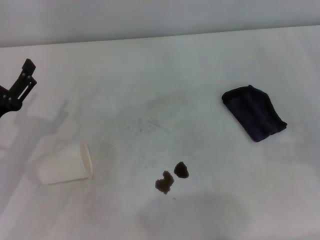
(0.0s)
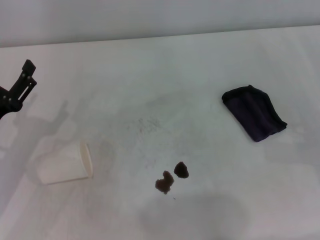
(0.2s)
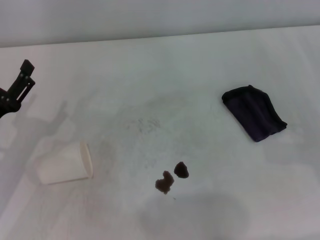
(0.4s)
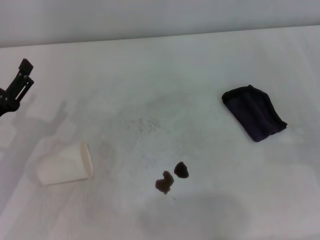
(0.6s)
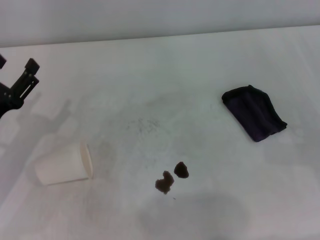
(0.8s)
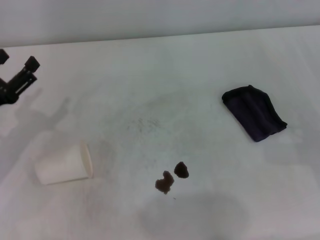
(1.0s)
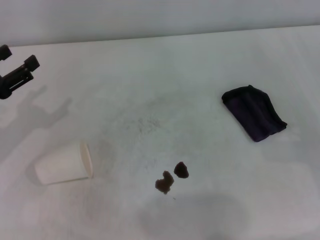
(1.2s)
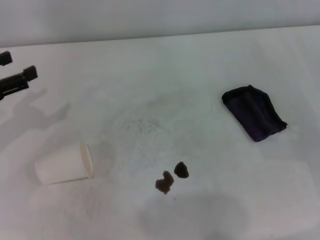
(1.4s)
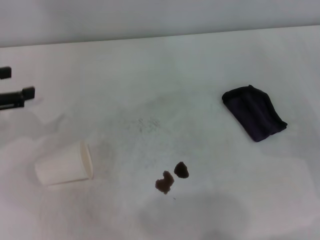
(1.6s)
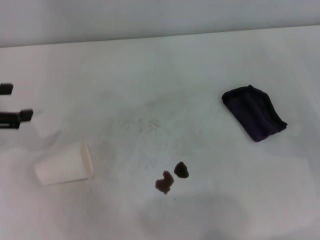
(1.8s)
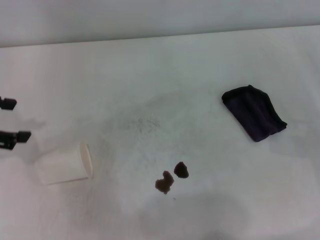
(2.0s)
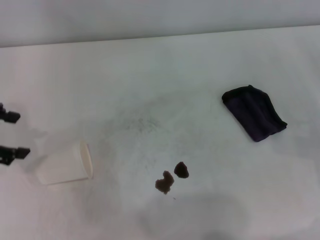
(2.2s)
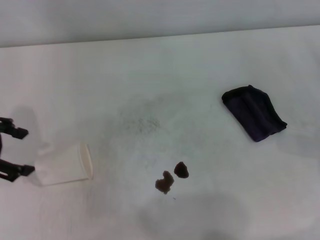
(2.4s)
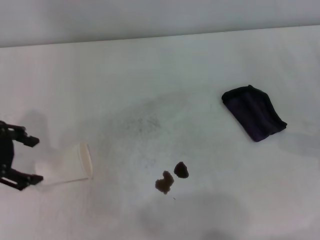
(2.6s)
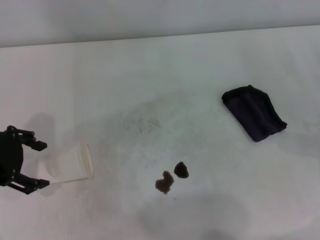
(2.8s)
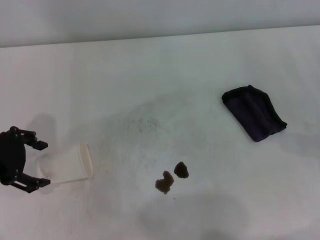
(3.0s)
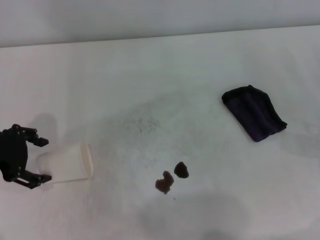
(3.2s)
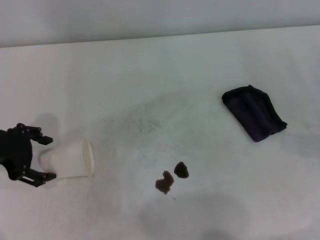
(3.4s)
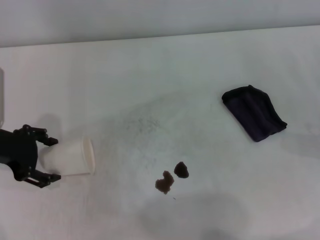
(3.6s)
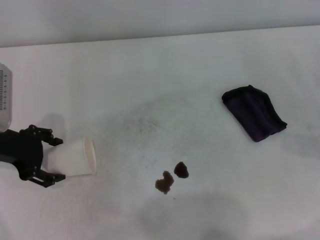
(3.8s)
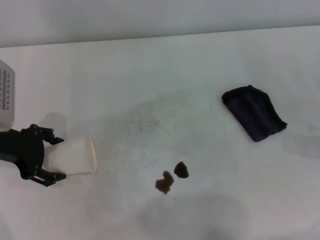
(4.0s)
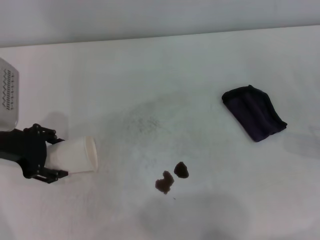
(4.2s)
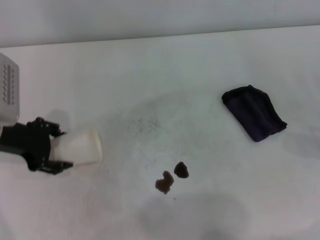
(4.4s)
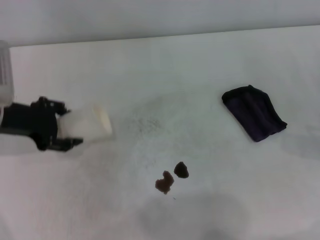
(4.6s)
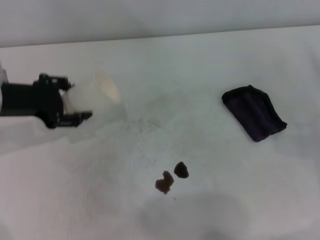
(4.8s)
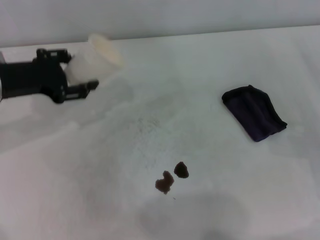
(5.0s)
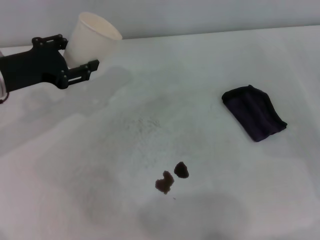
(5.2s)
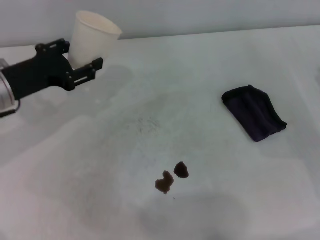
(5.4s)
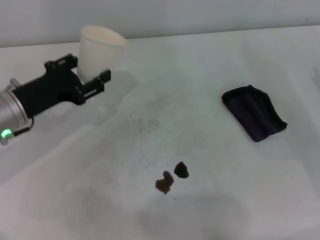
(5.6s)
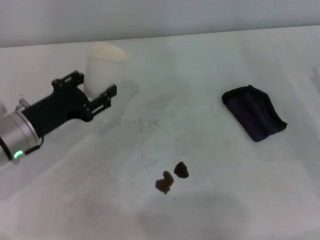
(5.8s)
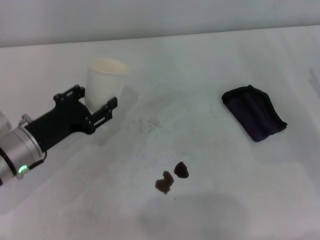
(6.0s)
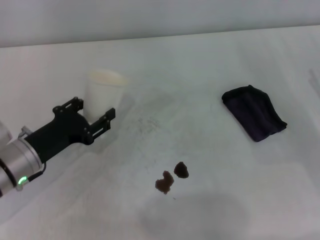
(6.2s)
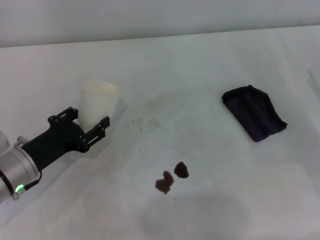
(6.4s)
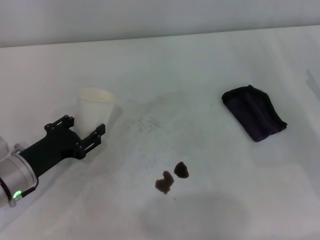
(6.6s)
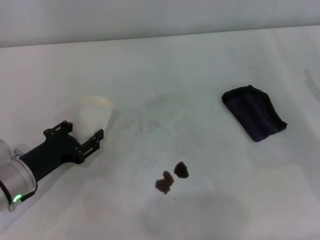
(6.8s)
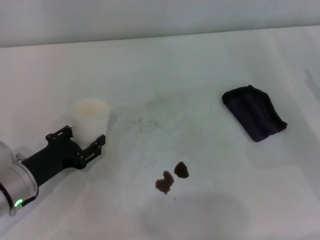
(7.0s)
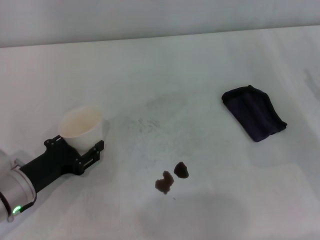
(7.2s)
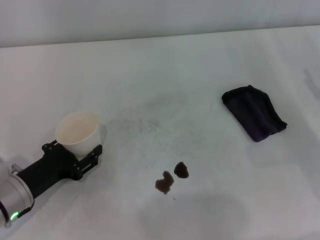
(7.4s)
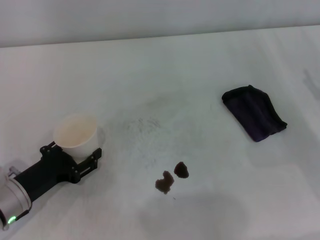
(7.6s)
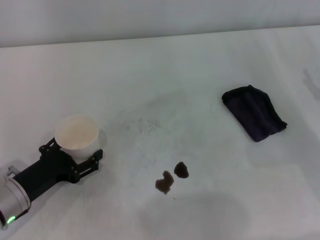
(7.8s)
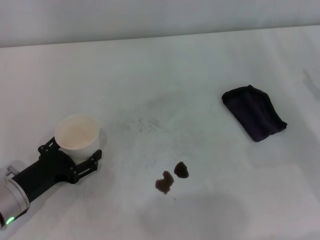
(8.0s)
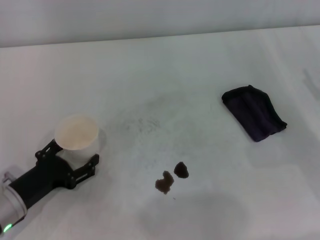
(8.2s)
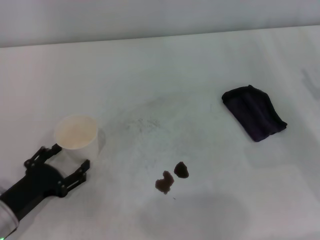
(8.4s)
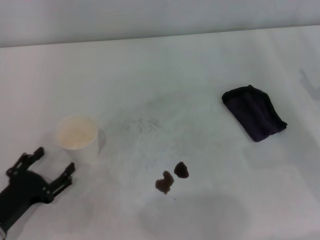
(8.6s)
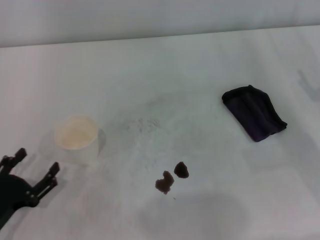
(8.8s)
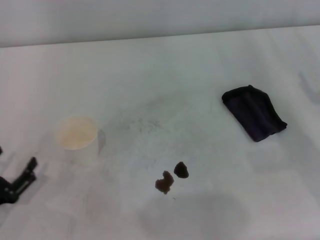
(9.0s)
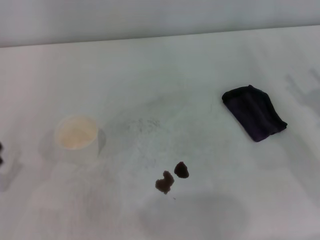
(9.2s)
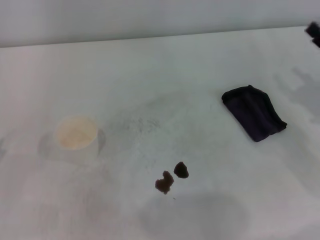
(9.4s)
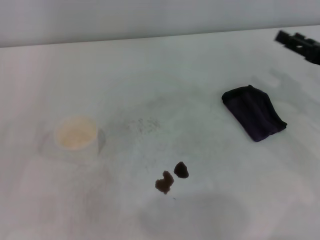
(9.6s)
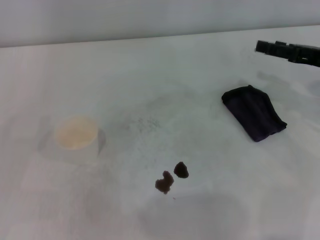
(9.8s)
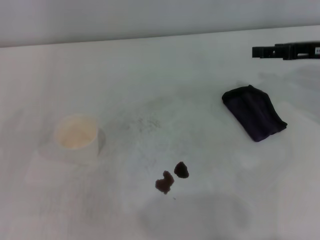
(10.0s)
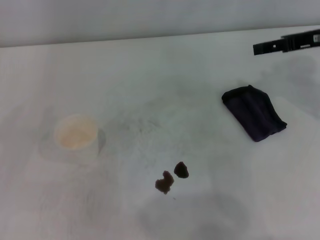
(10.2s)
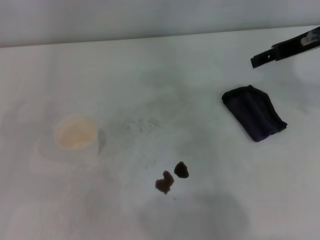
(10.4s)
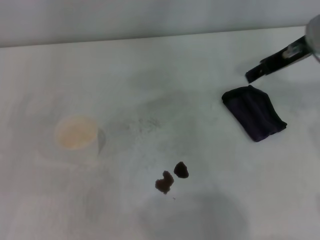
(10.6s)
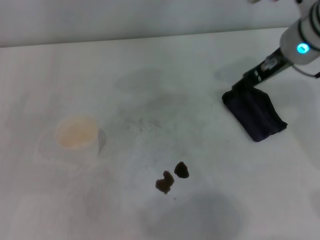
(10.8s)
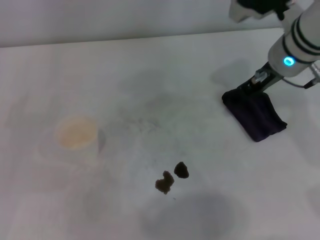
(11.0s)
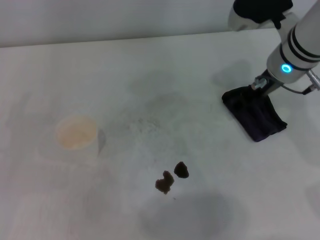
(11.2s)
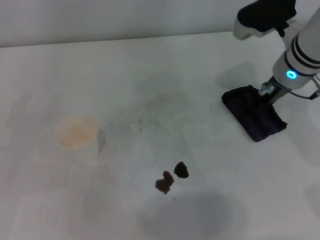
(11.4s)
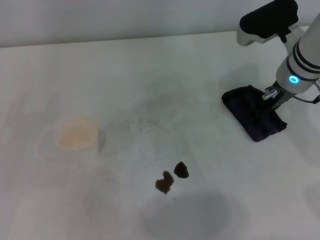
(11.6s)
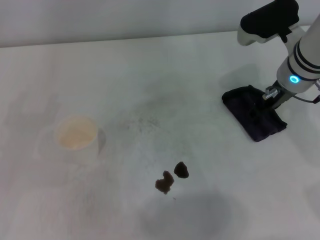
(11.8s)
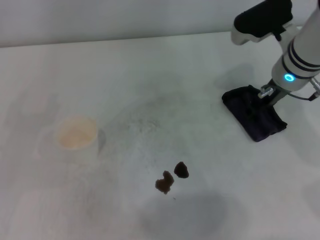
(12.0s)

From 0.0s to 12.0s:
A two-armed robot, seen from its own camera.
Step, from 0.0s to 4.2s: Grasp the paper cup with the left gripper.
Step, from 4.4s to 8.2s: Stand the paper cup upright with the left gripper.
From 0.0s to 1.6s: The left gripper goes roughly 15 cm upward, to the left and forward.
From 1.6s to 3.0s: The left gripper travels to the right by some 5 cm.
From 3.0s to 4.4s: The left gripper closes its fingers.
From 4.4s to 6.0s: The left gripper heads downward, covering approximately 10 cm.
From 6.0s to 7.6s: The left gripper travels backward by roughly 5 cm.
From 7.6s to 9.0s: The left gripper is displaced backward and to the left by roughly 10 cm, and opens.
From 9.0s to 10.4s: The left gripper shifts about 10 cm to the left, upward and forward; the right gripper is displaced upward, forward and to the left by approximately 20 cm.
From 10.4s to 12.0s: The right gripper shifts some 10 cm downward and to the left.

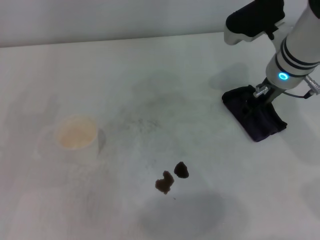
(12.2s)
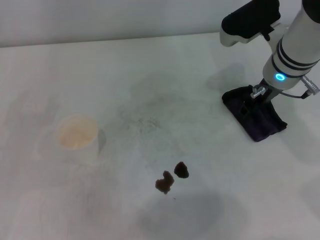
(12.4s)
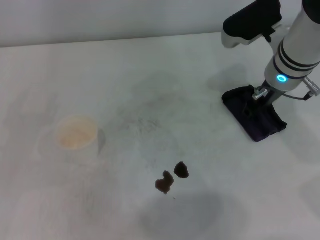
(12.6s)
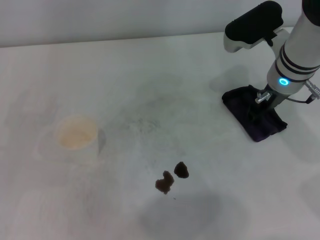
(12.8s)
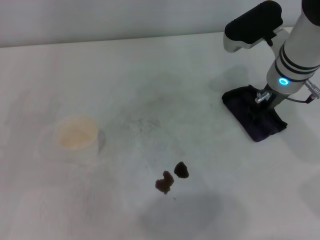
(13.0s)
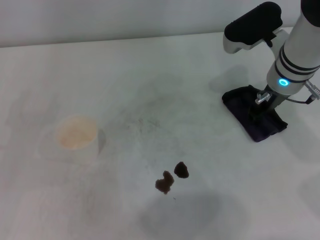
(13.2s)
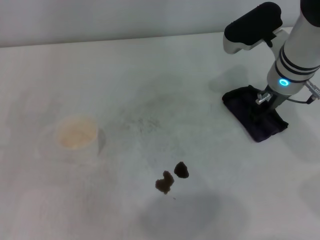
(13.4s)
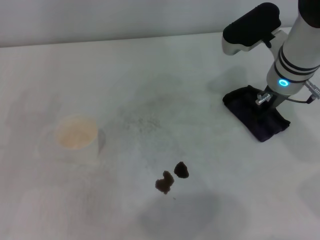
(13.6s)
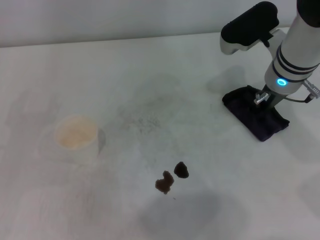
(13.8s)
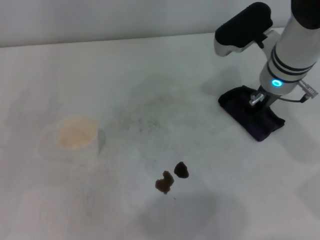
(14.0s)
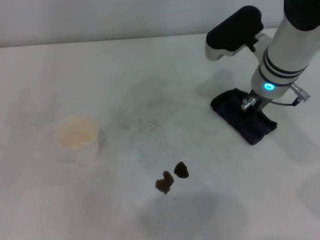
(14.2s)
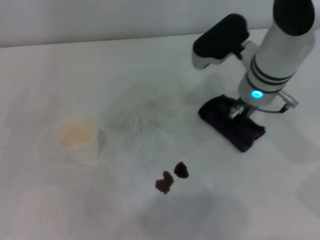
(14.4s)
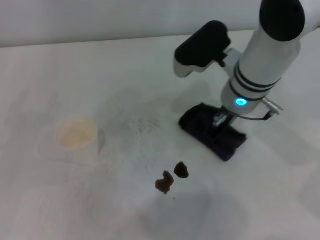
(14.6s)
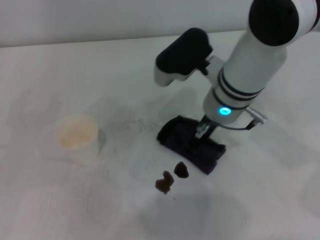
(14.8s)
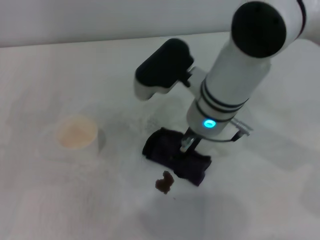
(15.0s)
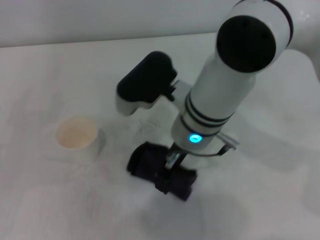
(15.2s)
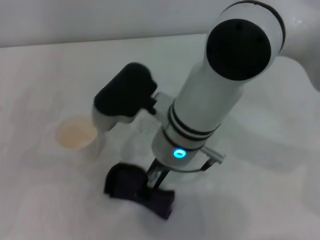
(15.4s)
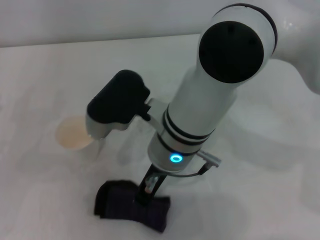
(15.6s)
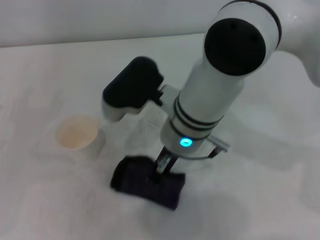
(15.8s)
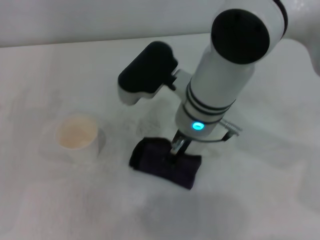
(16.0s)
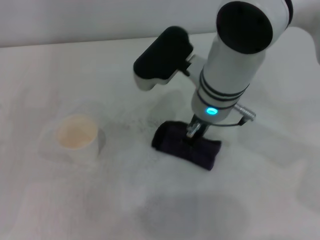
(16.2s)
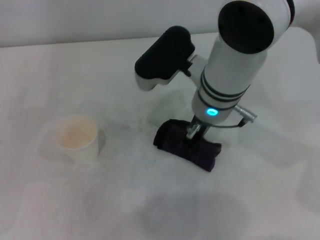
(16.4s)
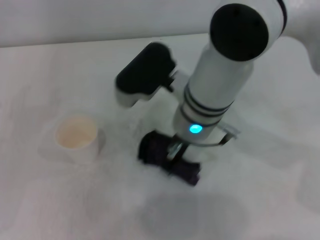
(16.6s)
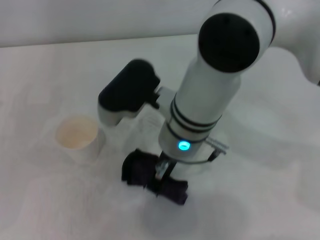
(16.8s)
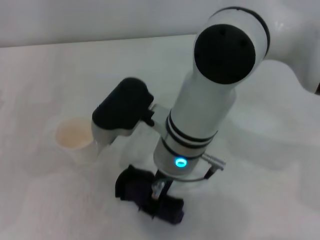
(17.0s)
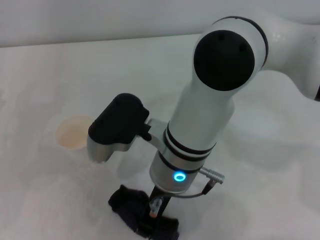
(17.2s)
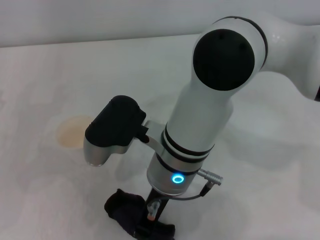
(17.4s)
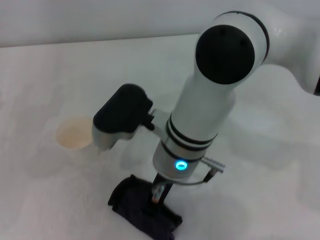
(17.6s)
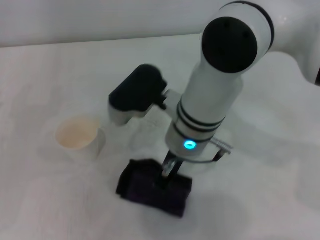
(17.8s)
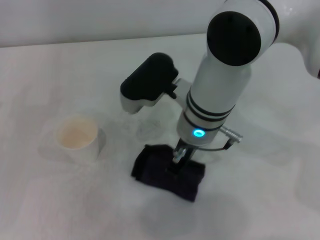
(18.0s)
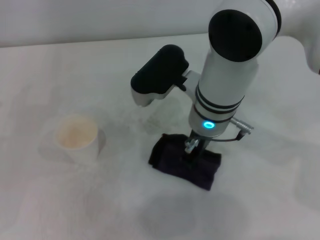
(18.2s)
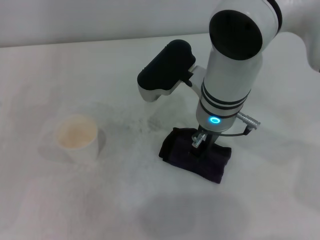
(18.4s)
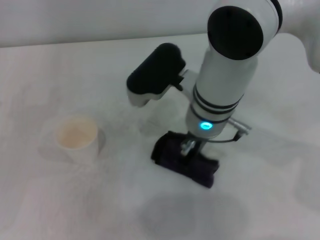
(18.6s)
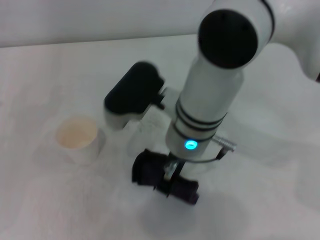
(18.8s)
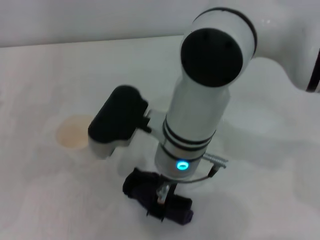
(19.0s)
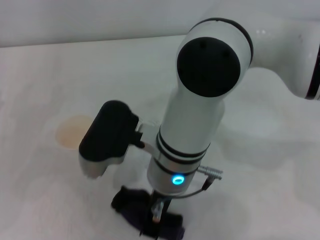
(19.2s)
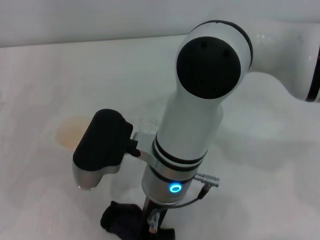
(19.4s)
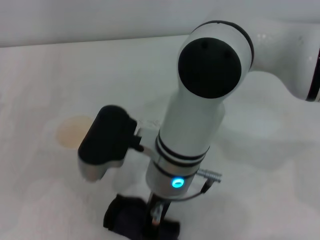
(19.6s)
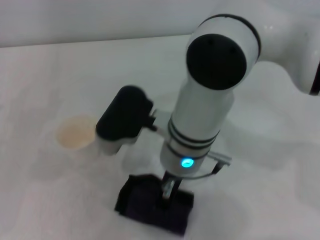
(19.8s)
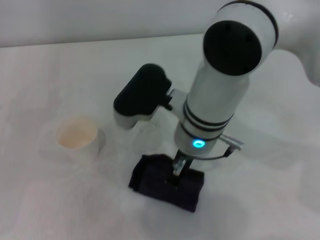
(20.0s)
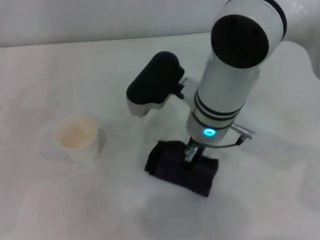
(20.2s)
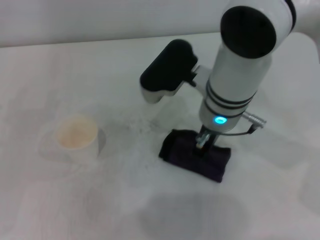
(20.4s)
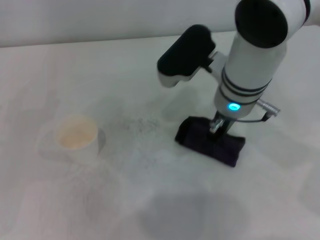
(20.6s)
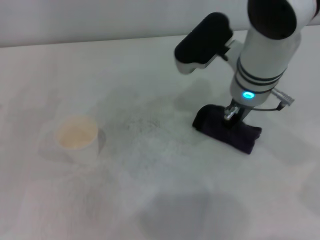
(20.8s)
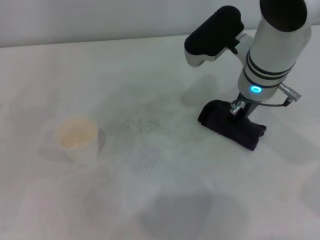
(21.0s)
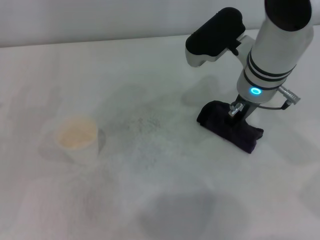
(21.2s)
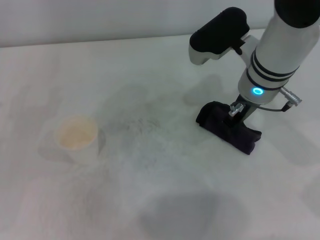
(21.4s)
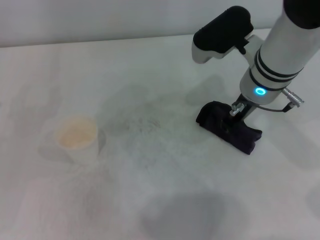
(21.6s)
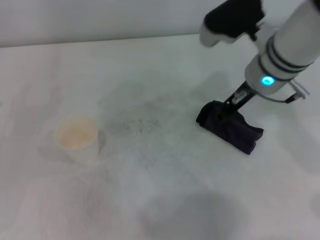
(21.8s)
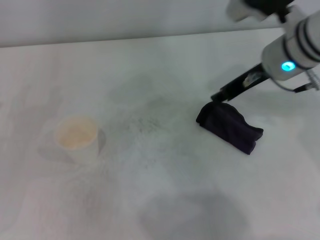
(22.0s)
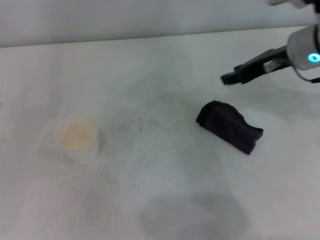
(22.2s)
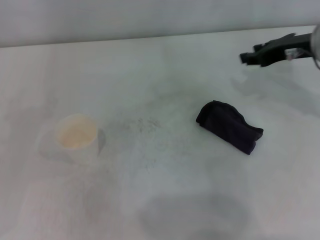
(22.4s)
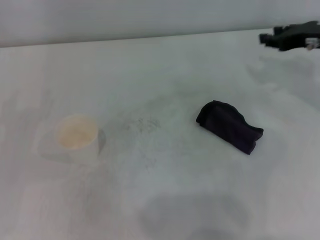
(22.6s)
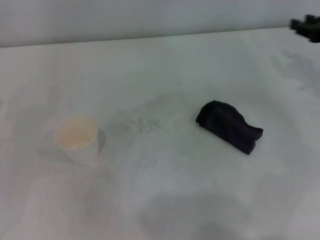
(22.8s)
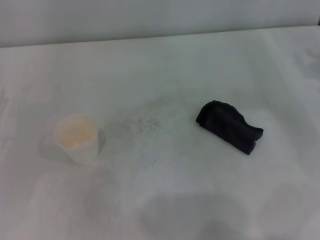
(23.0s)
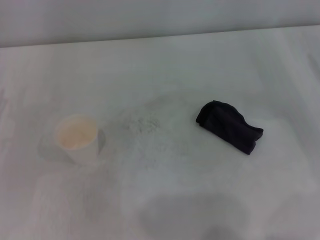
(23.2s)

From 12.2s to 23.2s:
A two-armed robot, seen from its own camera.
Step, from 14.0s to 20.8s: Wipe the stains off the table with the right gripper.
Step, from 21.0s to 21.6s: Place the rag on the table with the right gripper.
From 12.2s to 13.8s: The right gripper closes up.
From 13.8s to 15.4s: The right gripper moves to the left and backward, approximately 20 cm.
From 17.0s to 18.4s: The right gripper is displaced to the right by some 5 cm.
From 20.0s to 21.6s: The right gripper moves to the right and forward, some 10 cm.
From 21.6s to 23.2s: The right gripper is displaced to the right by roughly 25 cm.
